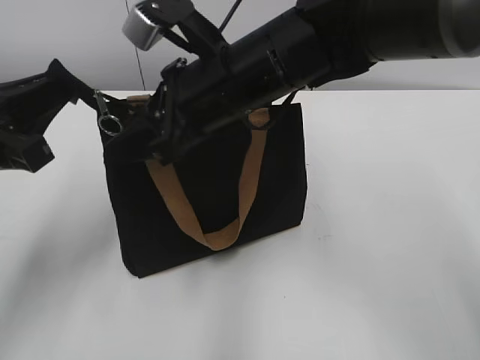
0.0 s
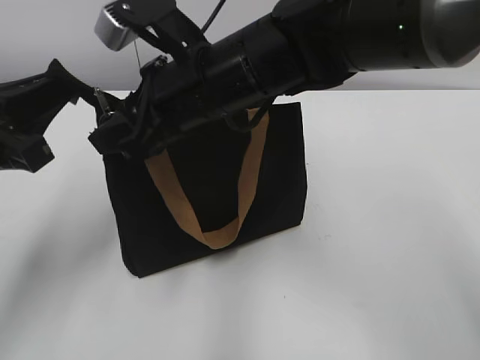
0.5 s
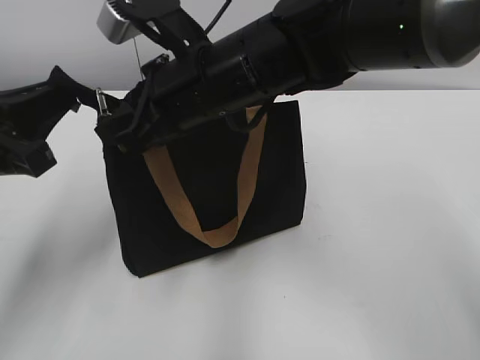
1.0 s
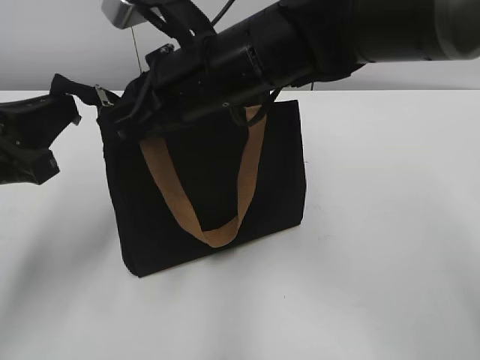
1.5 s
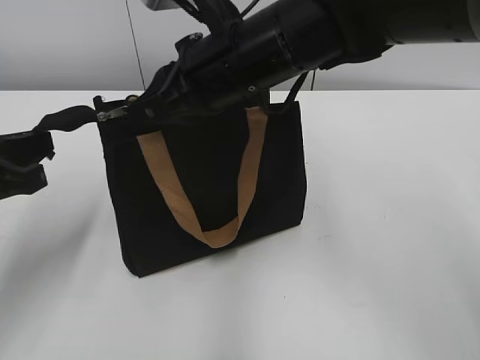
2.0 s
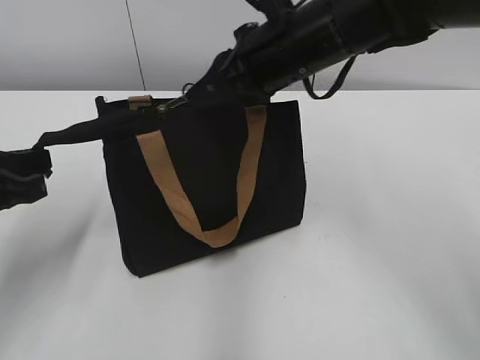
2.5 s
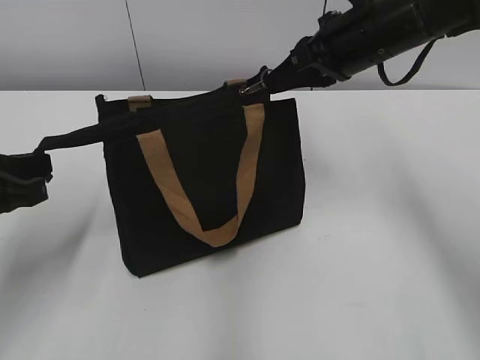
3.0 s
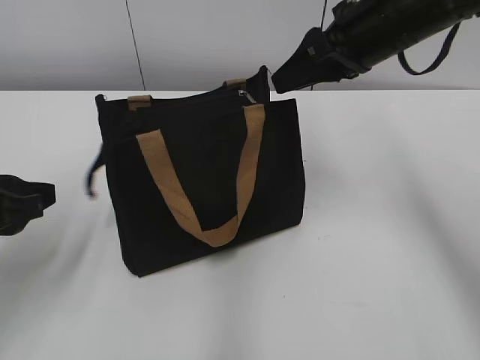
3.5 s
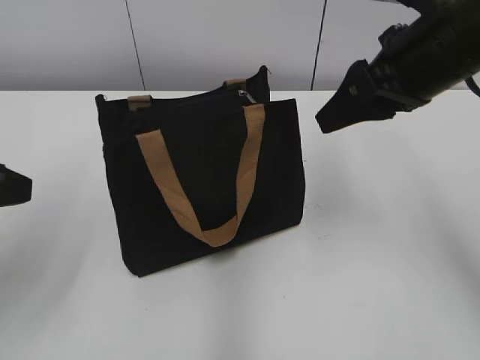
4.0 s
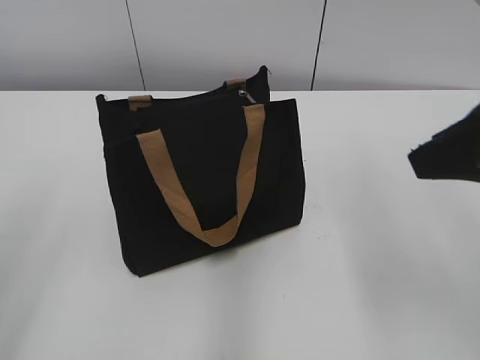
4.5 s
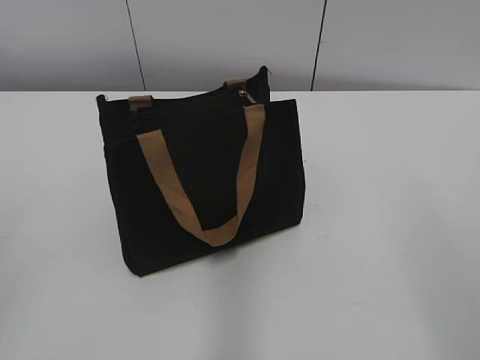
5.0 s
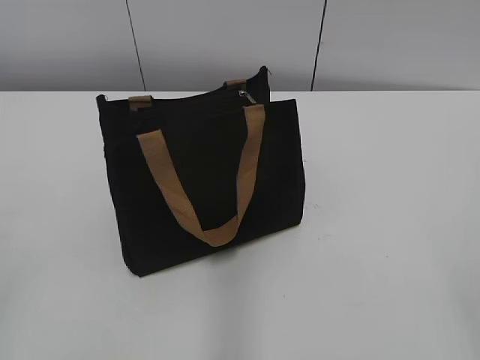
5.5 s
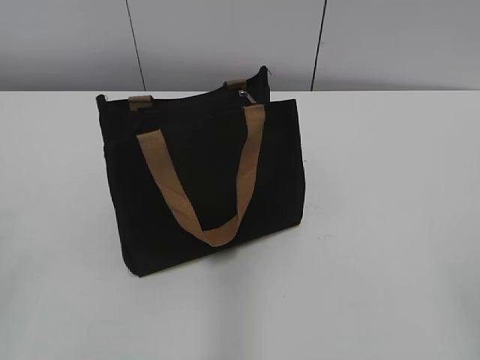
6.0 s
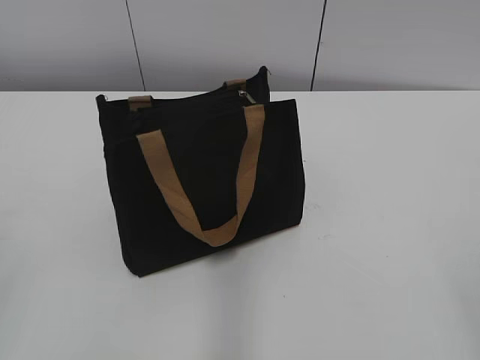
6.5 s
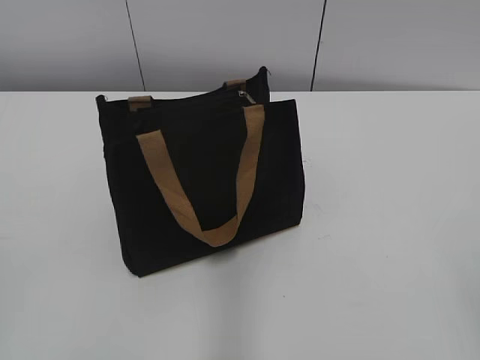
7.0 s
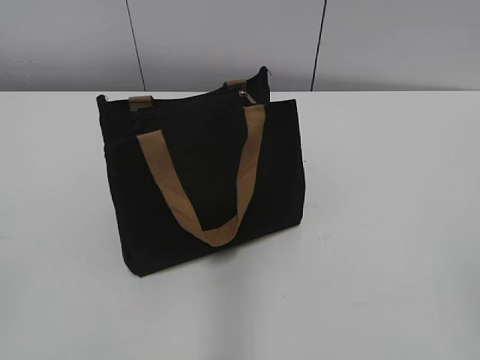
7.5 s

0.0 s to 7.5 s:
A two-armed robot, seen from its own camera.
Step, 0.0 to 3.0 s: Zip up the bag with your right hand.
0.0 to 2.0 s: The right gripper closes its fingers.
2.0 to 4.0 s: The right gripper moves to the right, approximately 15 cm, and opens. Meanwhile the left gripper opens up.
4.0 to 5.5 s: The left gripper moves backward, some 20 cm; the right gripper travels backward by about 30 cm.
